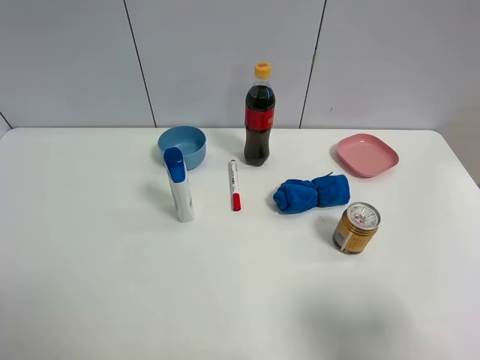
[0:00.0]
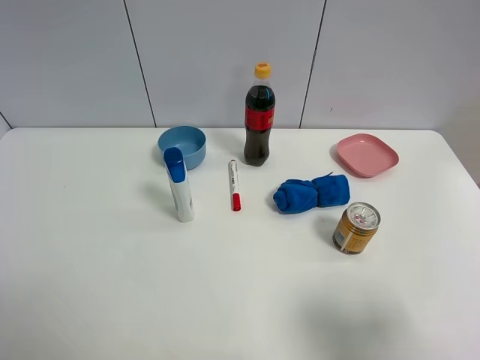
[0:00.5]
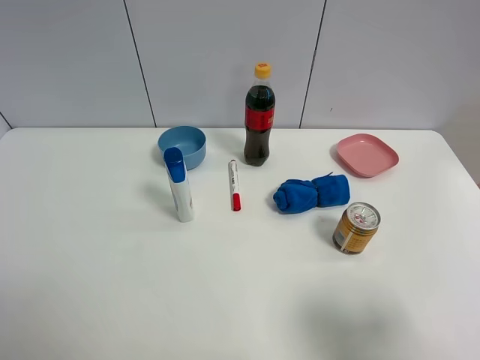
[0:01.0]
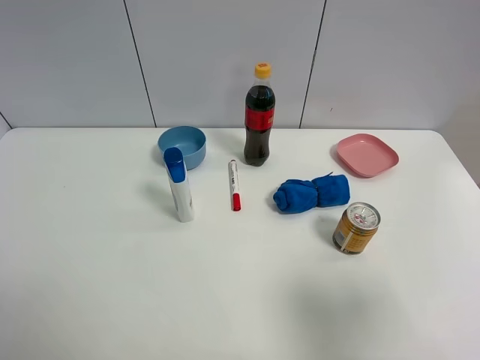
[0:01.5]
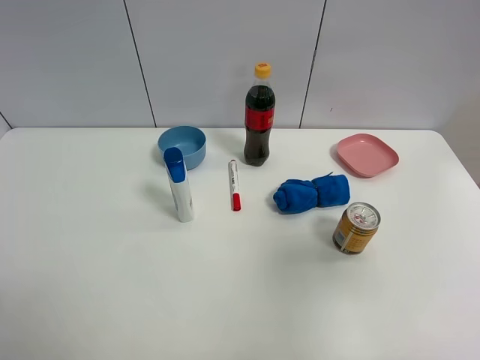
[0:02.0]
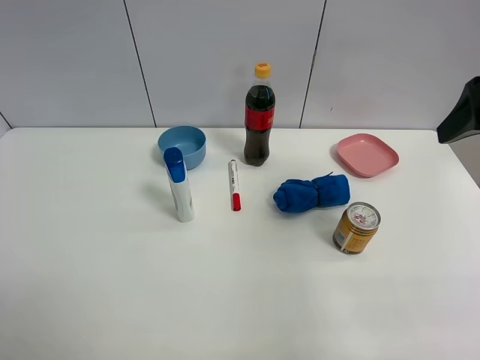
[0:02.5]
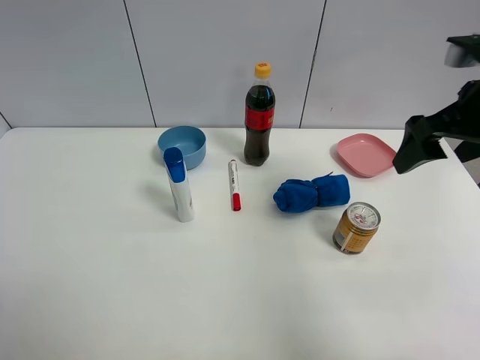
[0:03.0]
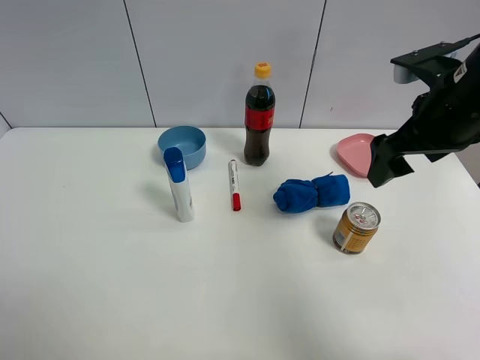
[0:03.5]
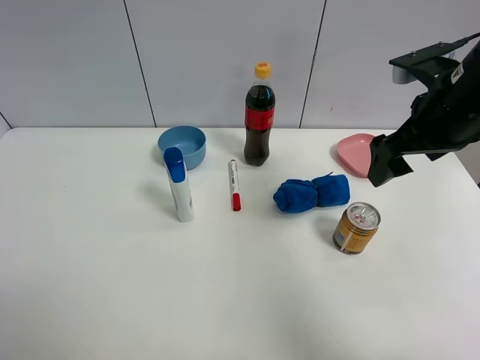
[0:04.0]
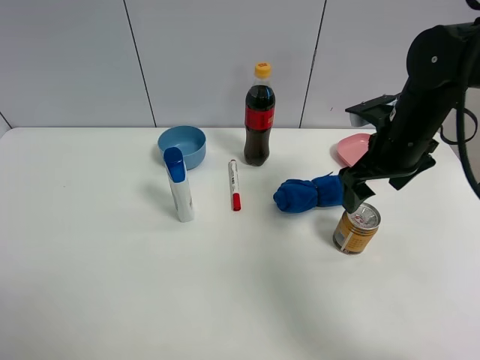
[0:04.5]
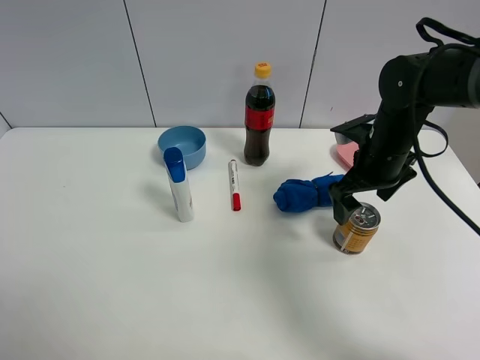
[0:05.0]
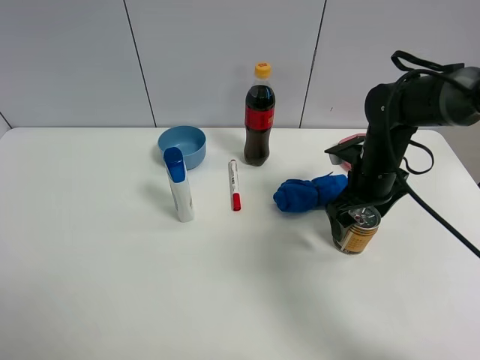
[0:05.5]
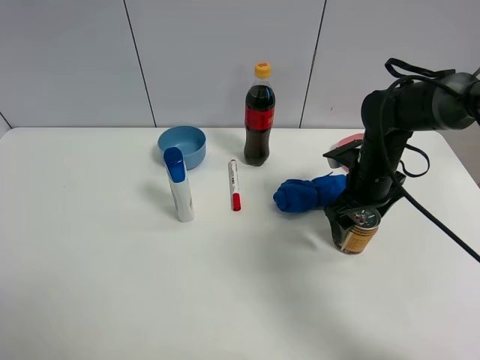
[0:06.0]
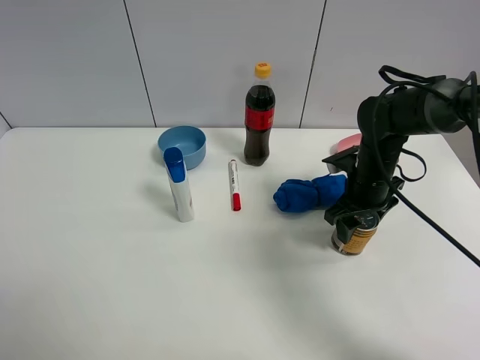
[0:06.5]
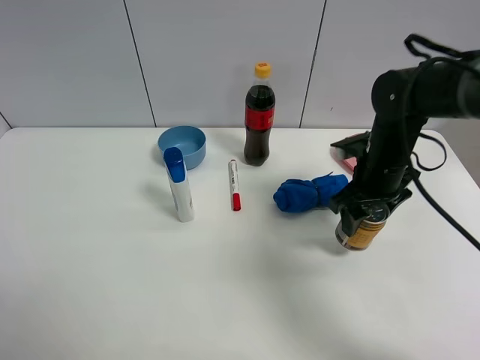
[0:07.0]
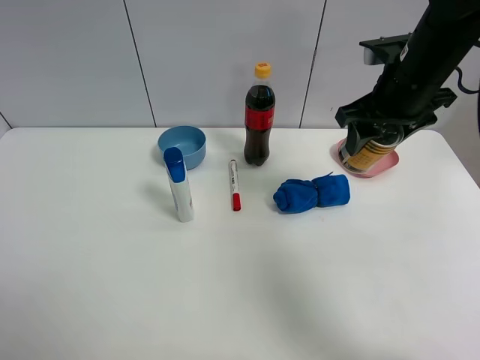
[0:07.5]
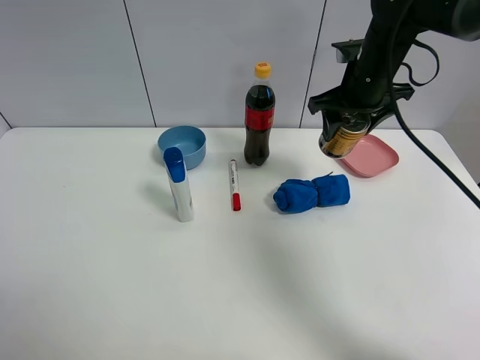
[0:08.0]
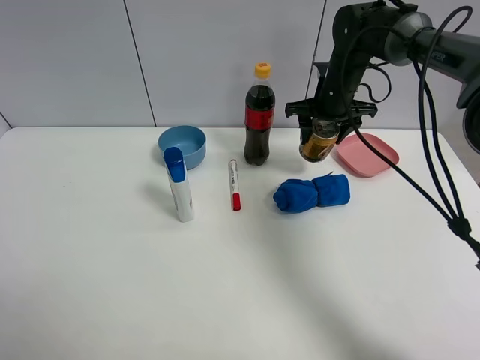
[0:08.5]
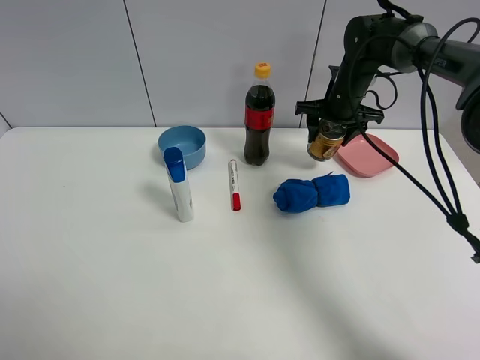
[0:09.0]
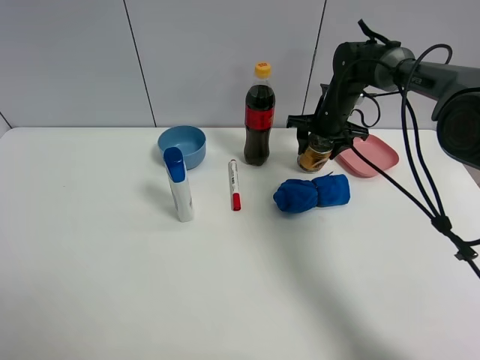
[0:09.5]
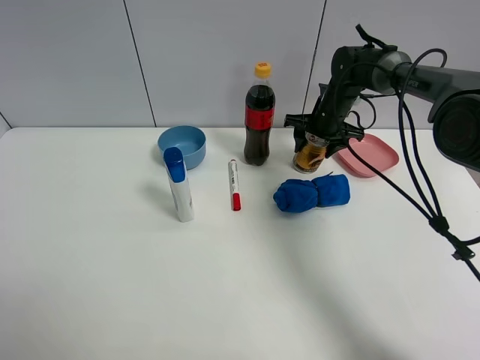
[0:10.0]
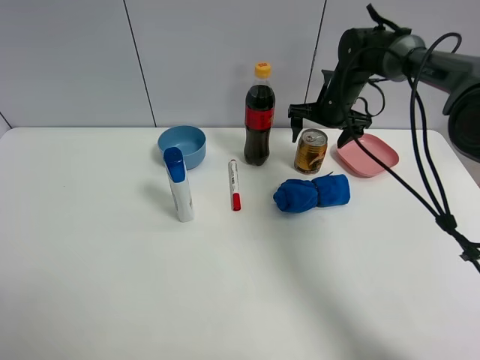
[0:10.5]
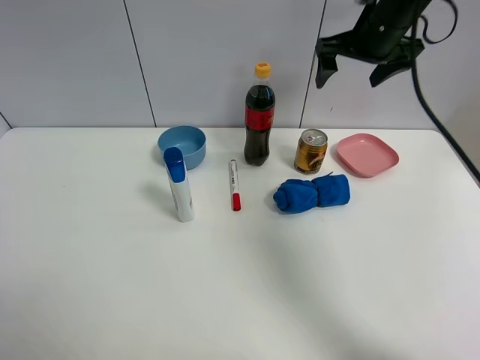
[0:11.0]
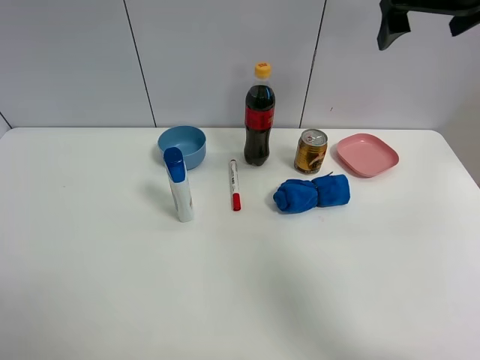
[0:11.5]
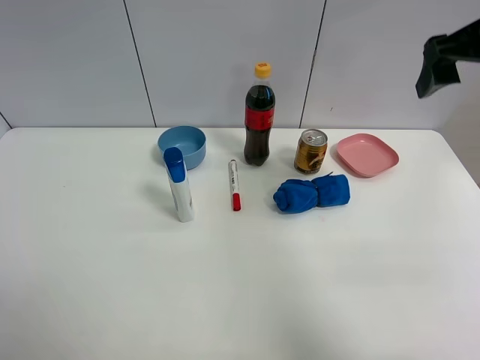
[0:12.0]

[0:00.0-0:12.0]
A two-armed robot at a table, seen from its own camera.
Task of the whole recording: the gripper move the object.
Step, 0:00.0 to 0:06.0: Grasp the red bull with the right gripper.
Step, 0:06.5 to 0:10.0: Place the red bull on the table with the right gripper.
0:00.0 to 0:02.0: The right gripper moves upward and forward, roughly 15 cm.
0:02.0 to 0:04.0: The right gripper moves forward and downward, some 20 cm.
0:04.0 to 0:06.0: The right gripper moves downward, some 15 cm.
0:06.0 to 0:08.0: The right gripper shifts some 15 cm upward and forward, and closes.
0:08.0 to 0:10.0: The right gripper moves downward and forward, approximately 15 cm.
0:10.0 to 0:12.0: The right gripper moves upward and backward, approximately 35 cm, and opens up.

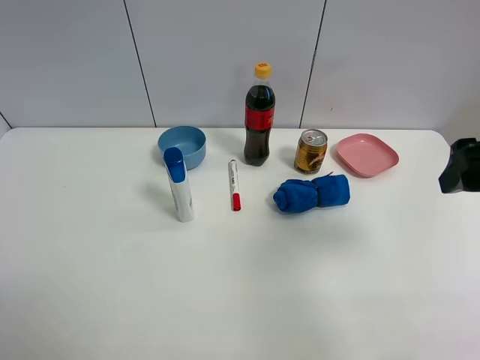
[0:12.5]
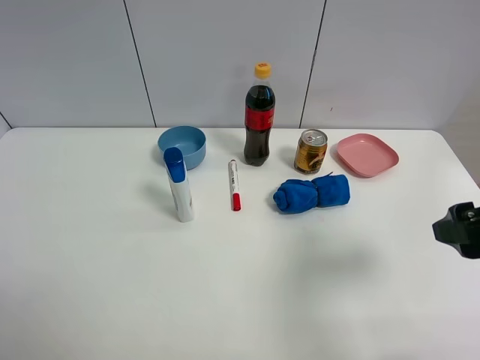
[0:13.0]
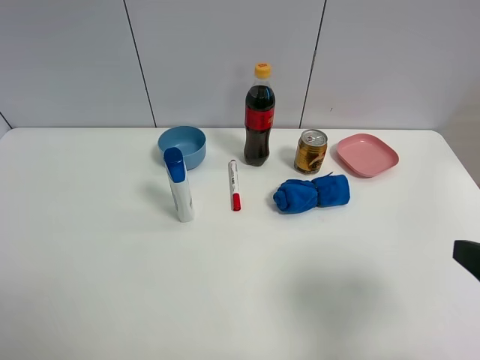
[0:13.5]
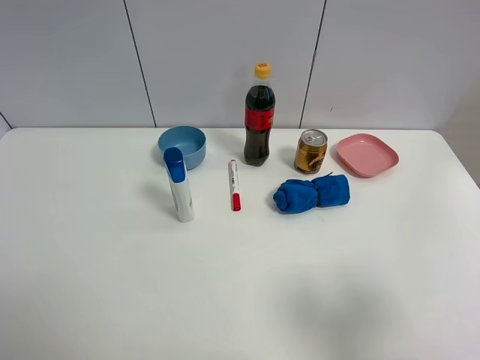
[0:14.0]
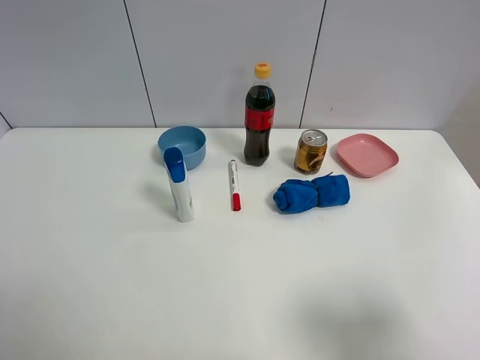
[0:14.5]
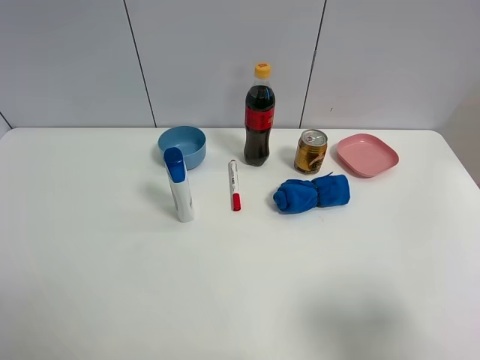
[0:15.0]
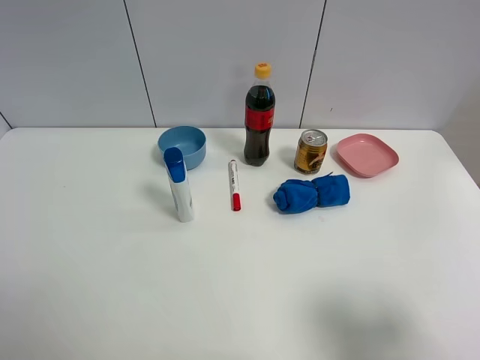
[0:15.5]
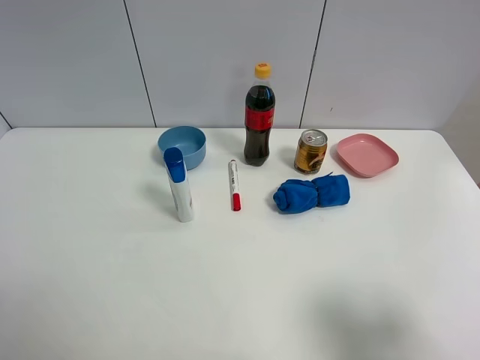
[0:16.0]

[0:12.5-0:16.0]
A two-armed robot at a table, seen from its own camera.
Task of the whole recording: the gripper move the object.
0:12.5 to 0:14.5: The right gripper heads backward, covering roughly 15 cm.

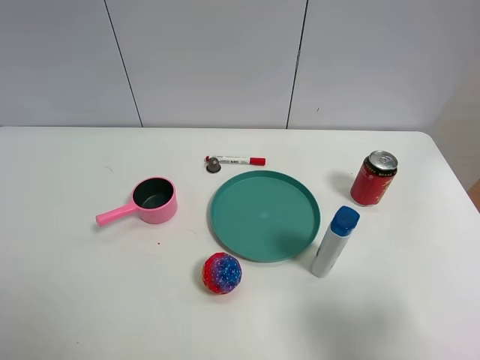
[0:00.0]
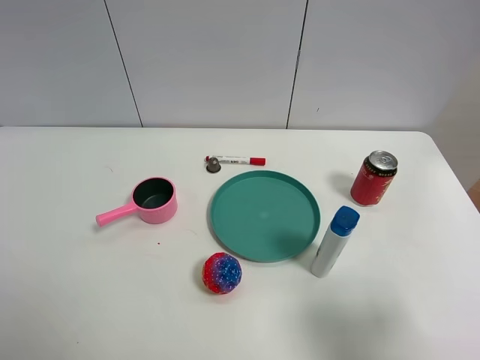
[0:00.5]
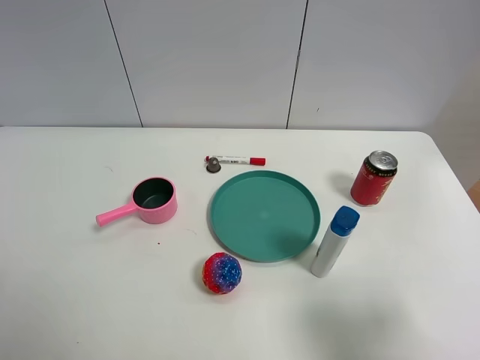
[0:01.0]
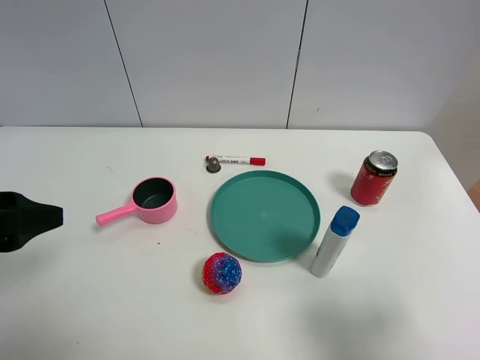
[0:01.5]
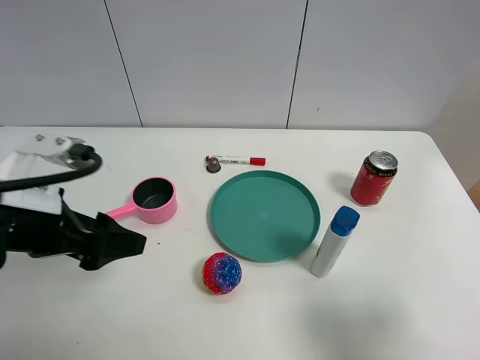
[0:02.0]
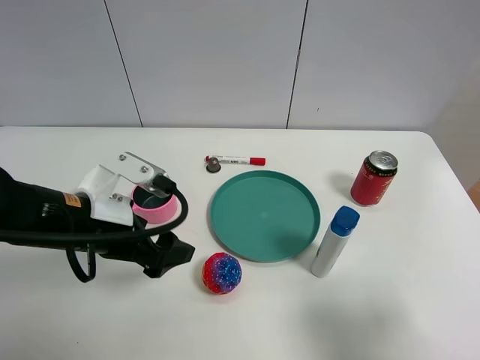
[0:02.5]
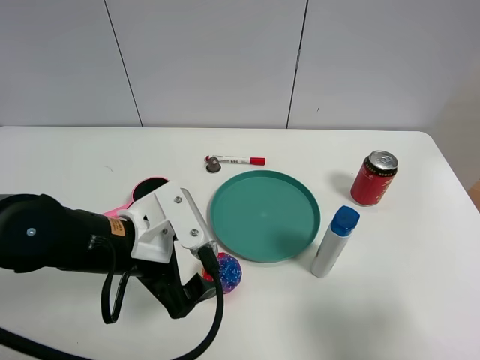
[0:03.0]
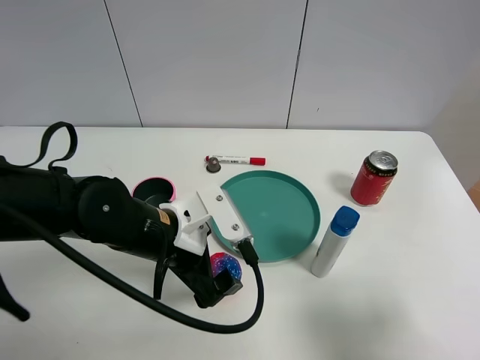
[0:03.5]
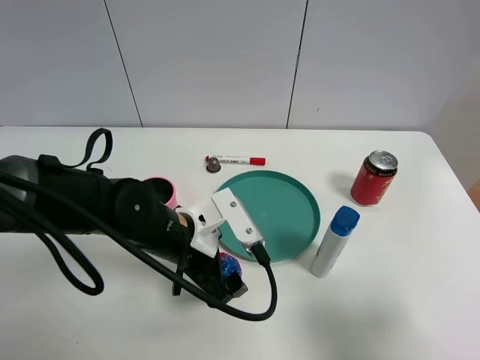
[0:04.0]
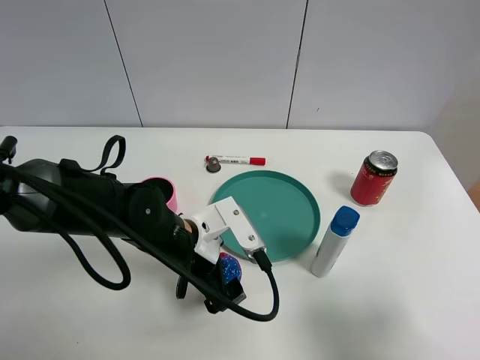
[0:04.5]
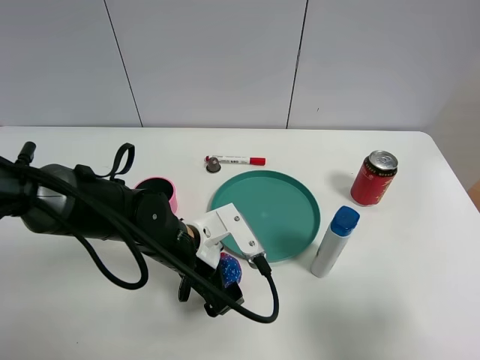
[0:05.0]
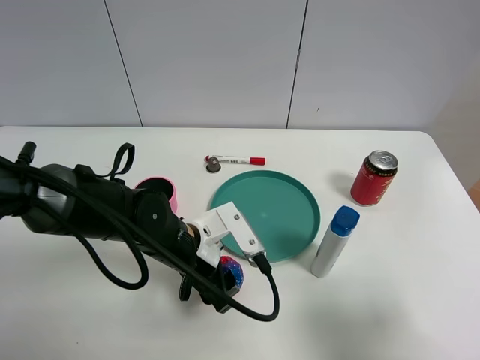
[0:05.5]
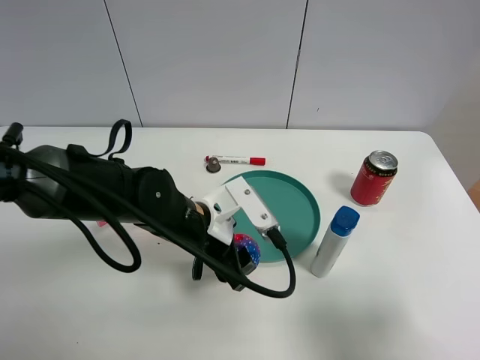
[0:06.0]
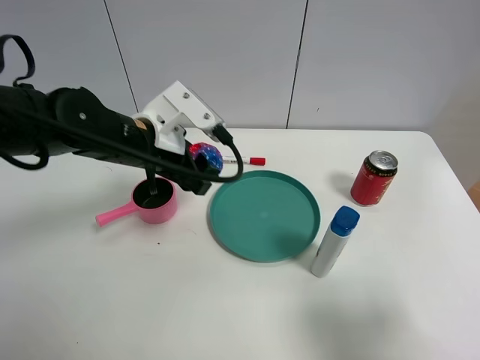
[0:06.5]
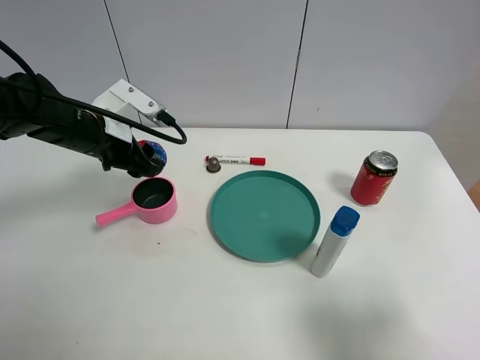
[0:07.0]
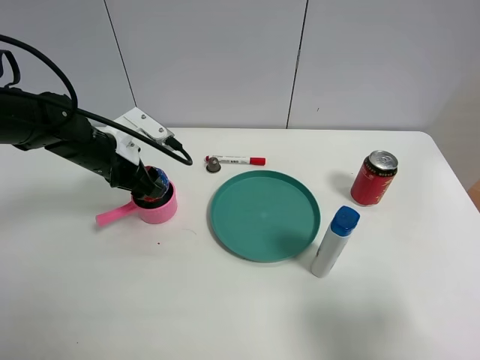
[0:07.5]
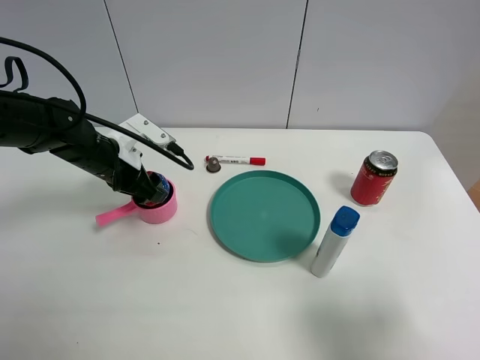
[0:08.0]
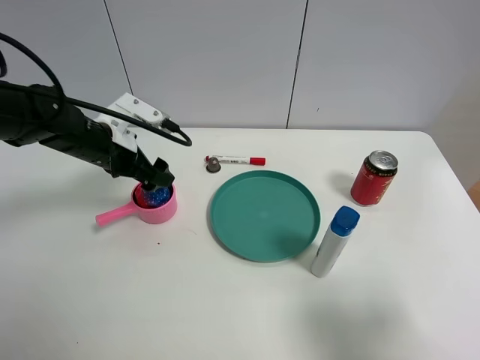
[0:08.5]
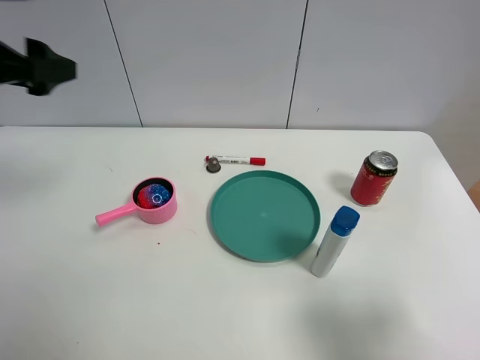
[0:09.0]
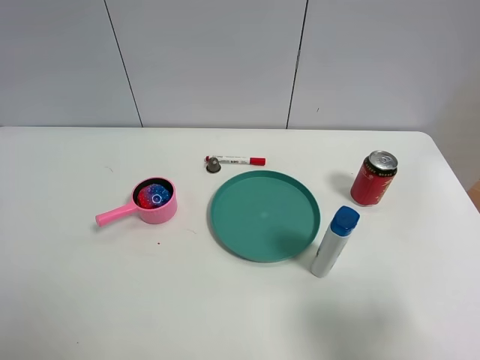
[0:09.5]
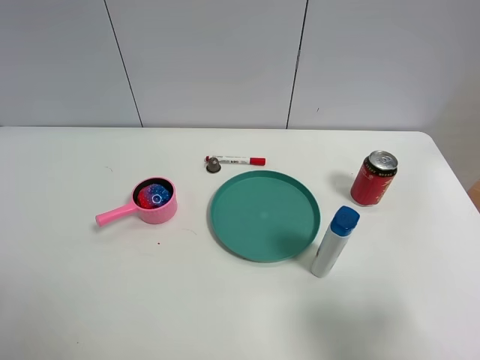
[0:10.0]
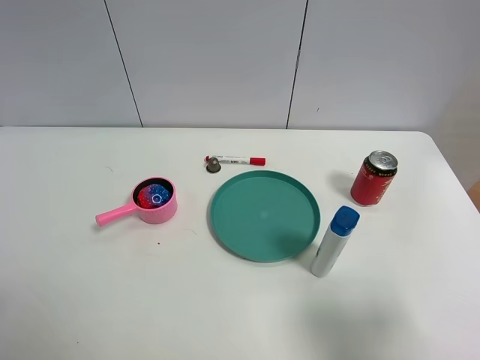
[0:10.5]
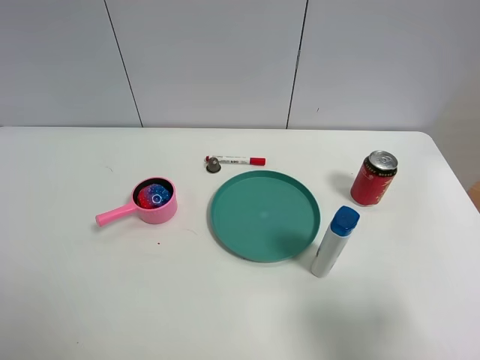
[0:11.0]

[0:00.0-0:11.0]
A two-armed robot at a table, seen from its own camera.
Task of the whole recording: the gripper move the object.
Step, 0:00.0 to 0:05.5: Grasp the colorful ball with the left gripper.
Step, 0:06.0 to 0:08.0: Place the colorful ball into the pink pot with the left gripper.
0:00.0 to 0:02.0: The left gripper heads forward and to the right, covering approximately 20 cm.
0:02.0 to 0:03.5: The left gripper is displaced to the right and downward by approximately 15 cm.
0:03.5 to 0:05.5: The left gripper ends up about 5 cm from where it was, and closes.
0:05.5 to 0:07.5: The left gripper goes about 20 cm to the left and forward.
0:07.5 to 0:09.0: The left gripper travels upward, to the left and backward by roughly 25 cm, and opens.
0:09.0 to 0:11.0: The left gripper travels backward by roughly 25 cm.
